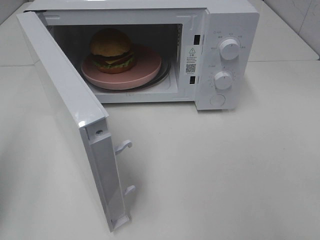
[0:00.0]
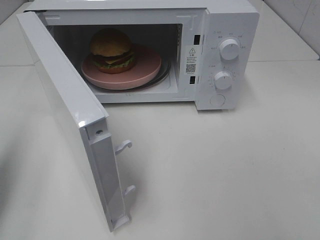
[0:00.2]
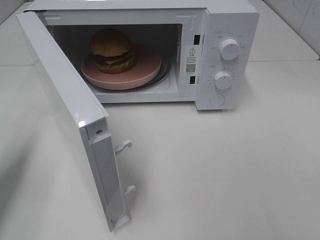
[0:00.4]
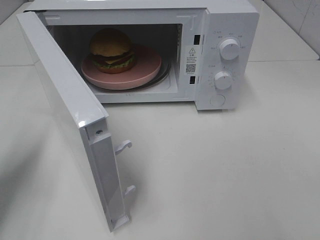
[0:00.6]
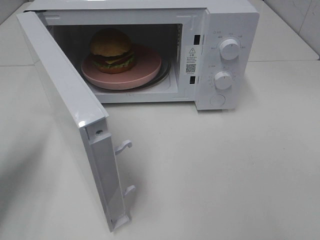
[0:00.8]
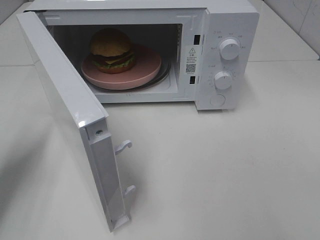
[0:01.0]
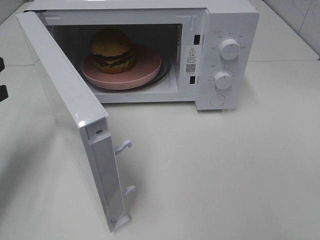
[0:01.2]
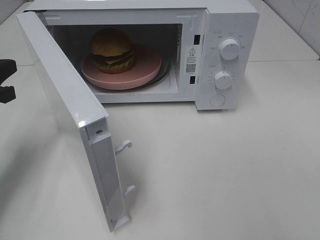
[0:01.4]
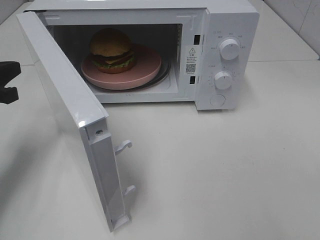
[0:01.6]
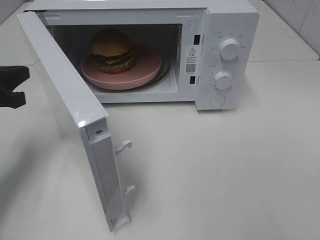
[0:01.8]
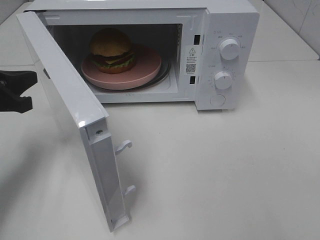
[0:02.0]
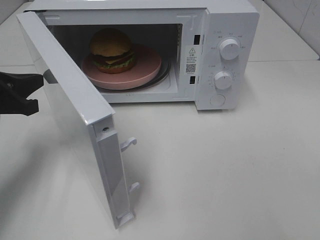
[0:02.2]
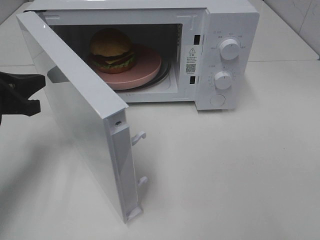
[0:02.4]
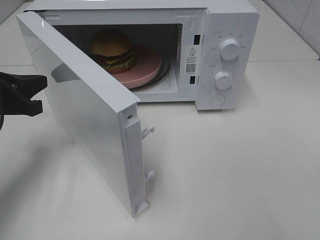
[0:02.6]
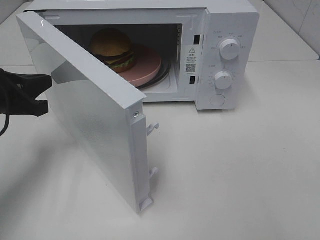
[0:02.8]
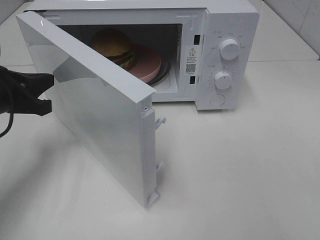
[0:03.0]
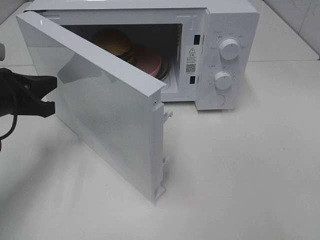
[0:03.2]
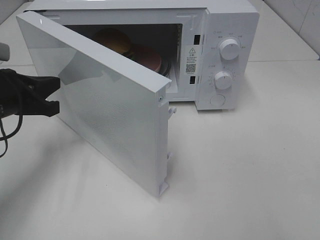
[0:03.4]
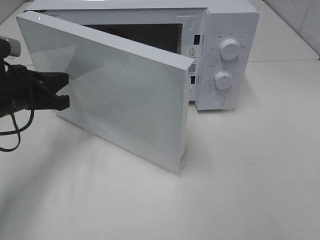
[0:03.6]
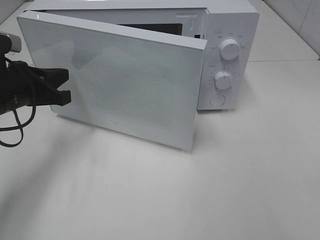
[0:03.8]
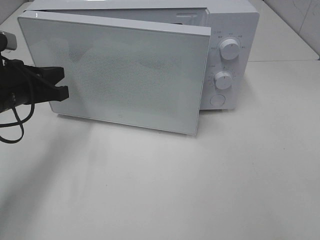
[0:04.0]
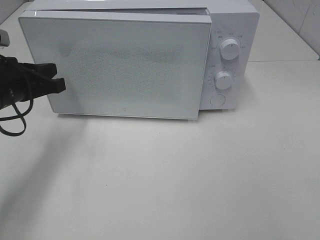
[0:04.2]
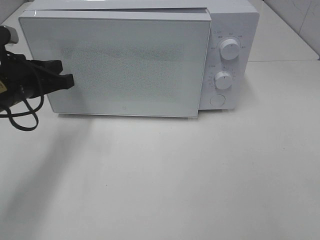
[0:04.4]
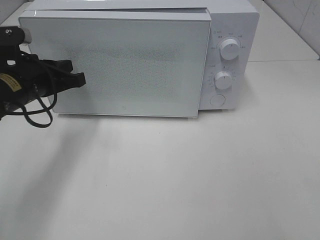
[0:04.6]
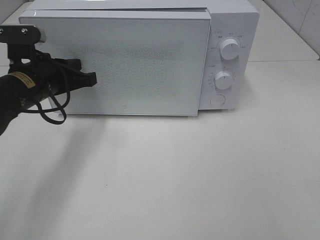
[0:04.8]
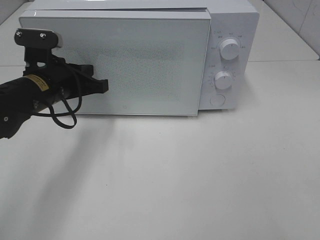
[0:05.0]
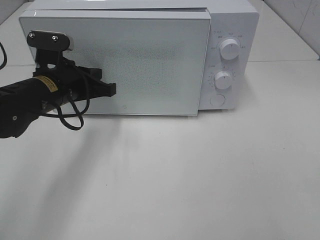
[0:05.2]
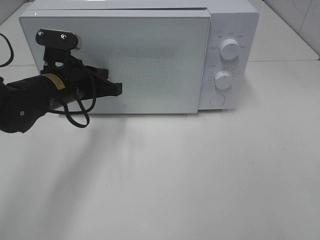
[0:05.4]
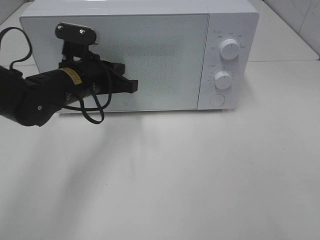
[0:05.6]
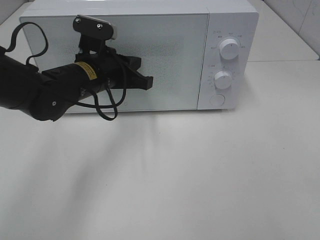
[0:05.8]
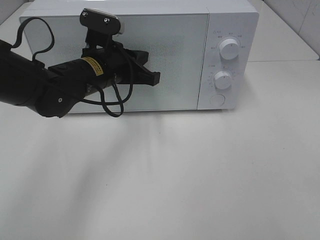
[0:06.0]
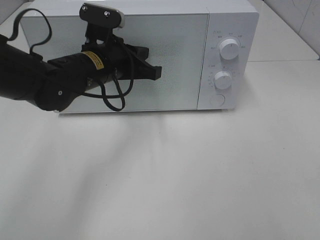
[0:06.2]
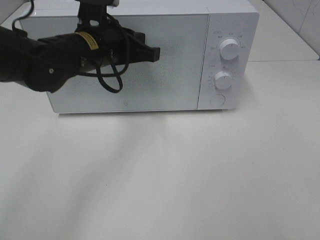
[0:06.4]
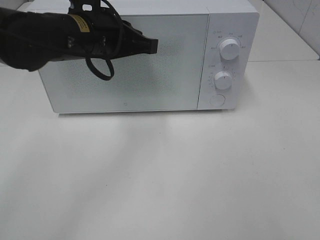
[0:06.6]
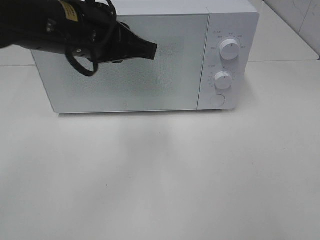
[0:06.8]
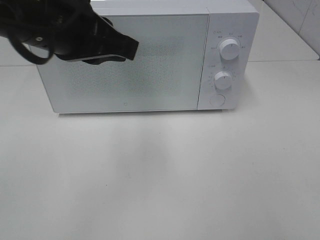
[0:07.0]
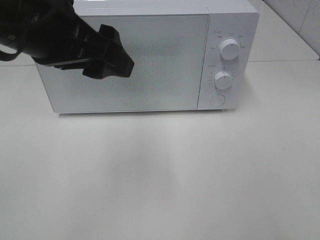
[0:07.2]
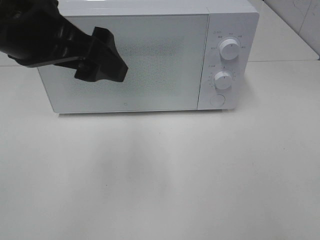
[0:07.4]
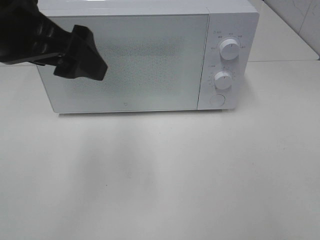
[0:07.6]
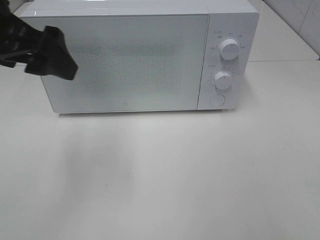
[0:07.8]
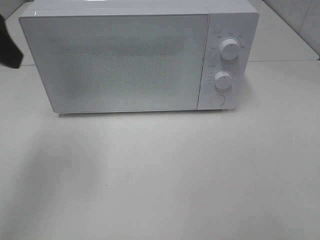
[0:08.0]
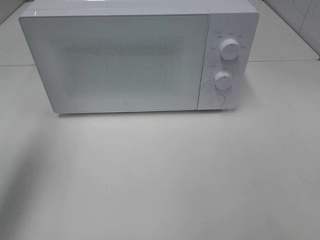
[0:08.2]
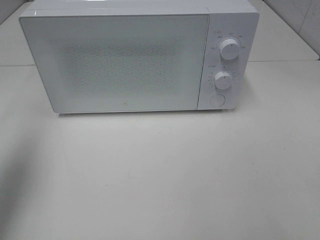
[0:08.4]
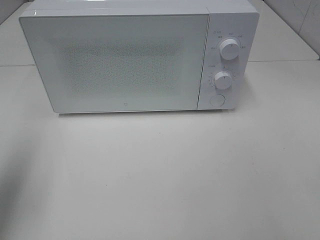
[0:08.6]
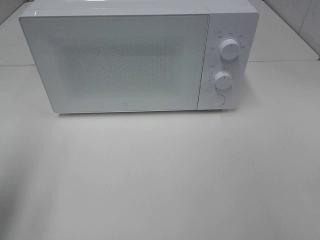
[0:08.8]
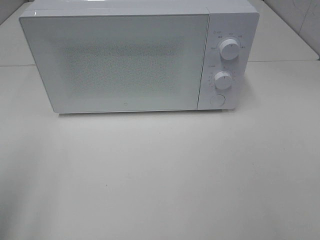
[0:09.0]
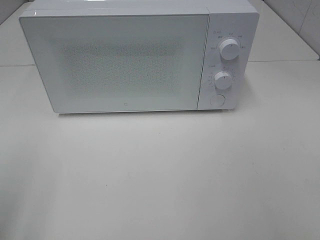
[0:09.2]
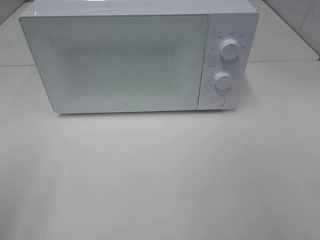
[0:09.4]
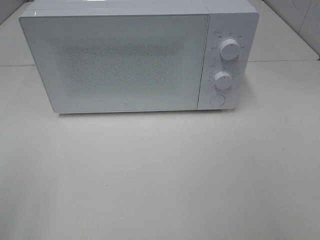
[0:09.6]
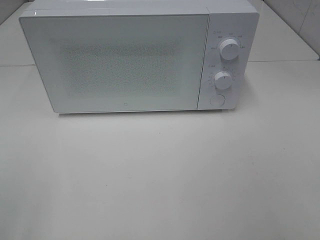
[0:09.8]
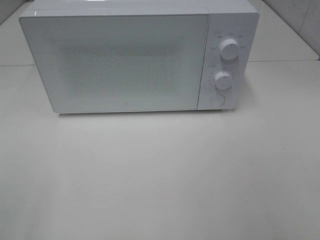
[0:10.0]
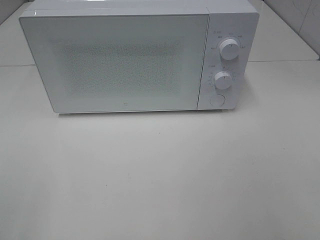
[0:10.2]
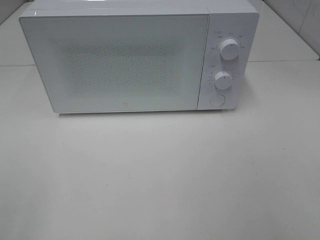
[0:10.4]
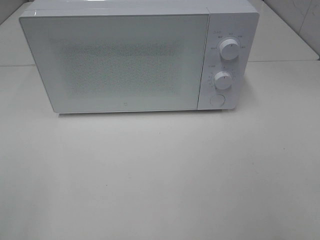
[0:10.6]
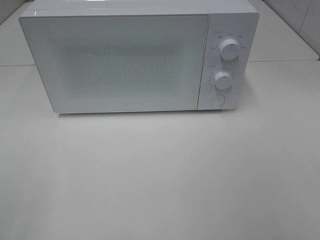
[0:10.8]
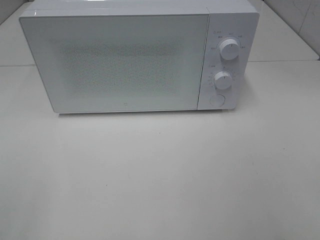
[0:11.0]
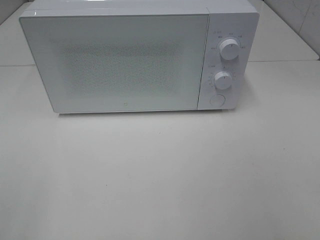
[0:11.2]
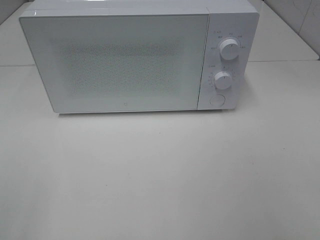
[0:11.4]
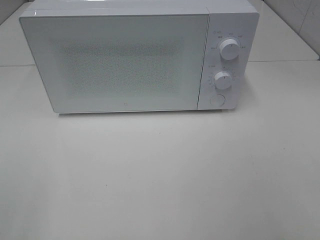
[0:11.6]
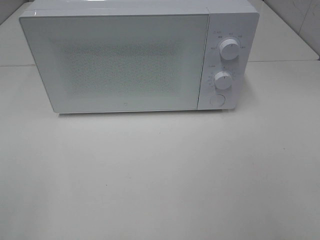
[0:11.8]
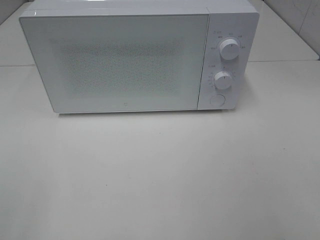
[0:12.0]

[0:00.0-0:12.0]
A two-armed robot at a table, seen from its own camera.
Task of the whole recording: Heat the burger.
Step, 0:00.0 to 0:07.2: Left hand: close the microwave door.
0:00.0 to 0:01.6: The left gripper shifts some 15 cm forward and downward.
0:04.4 to 0:06.0: The left gripper heads to the right, covering approximately 15 cm.
0:06.0 to 0:07.6: The left gripper heads upward, backward and to the left, covering about 20 cm, and opens up.
0:07.6 to 0:09.0: The left gripper moves to the left and backward, approximately 20 cm.
0:10.4 to 0:12.0: Neither gripper changes place.

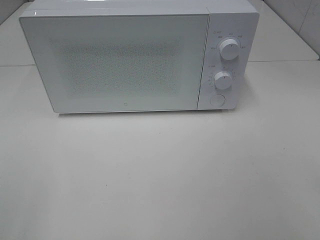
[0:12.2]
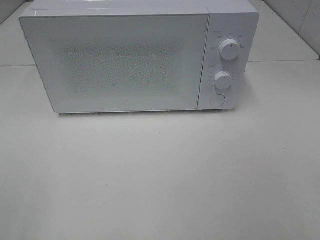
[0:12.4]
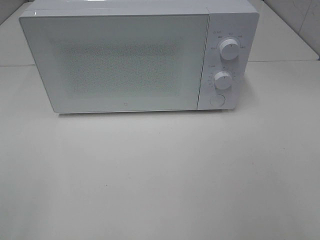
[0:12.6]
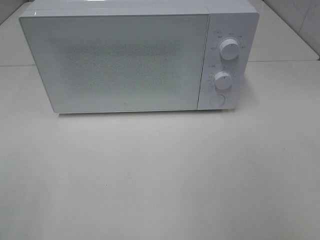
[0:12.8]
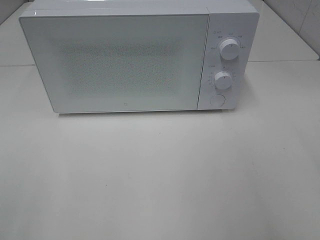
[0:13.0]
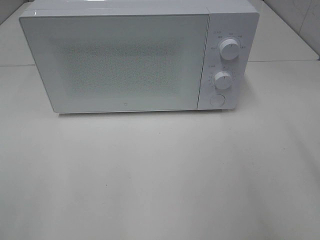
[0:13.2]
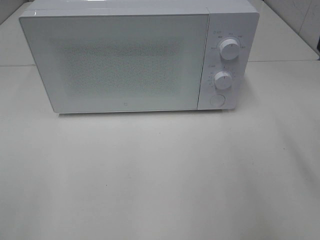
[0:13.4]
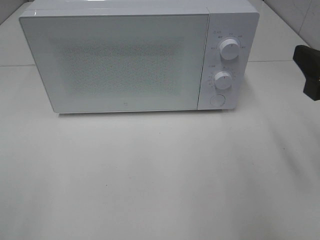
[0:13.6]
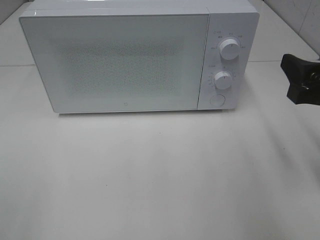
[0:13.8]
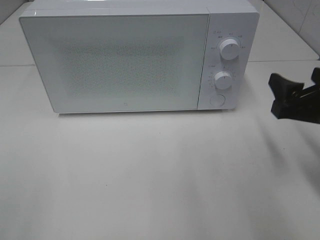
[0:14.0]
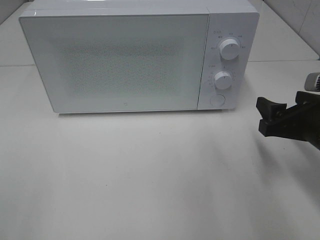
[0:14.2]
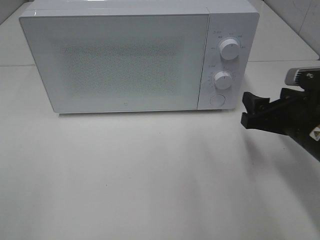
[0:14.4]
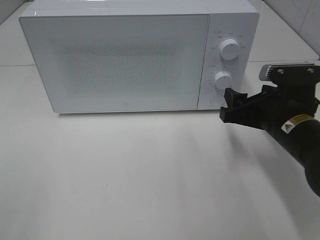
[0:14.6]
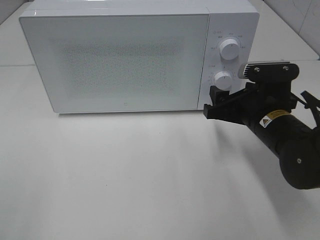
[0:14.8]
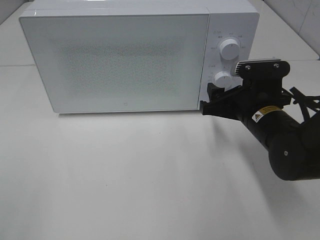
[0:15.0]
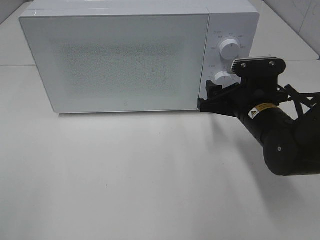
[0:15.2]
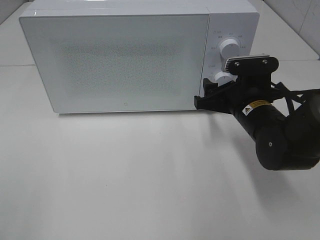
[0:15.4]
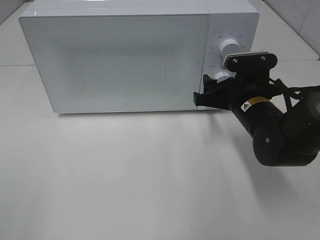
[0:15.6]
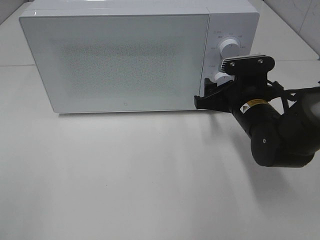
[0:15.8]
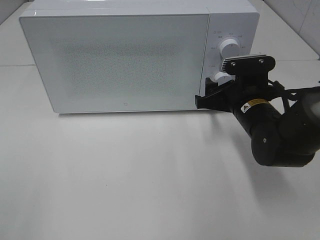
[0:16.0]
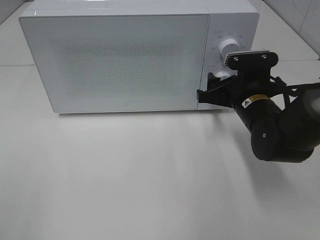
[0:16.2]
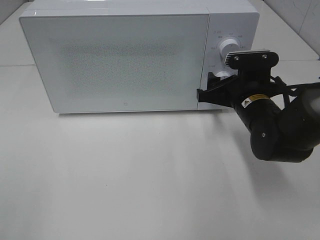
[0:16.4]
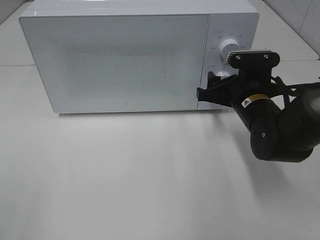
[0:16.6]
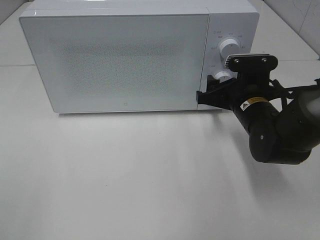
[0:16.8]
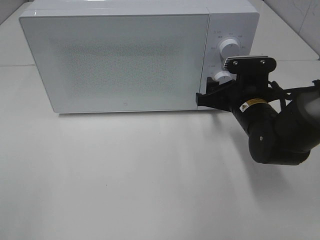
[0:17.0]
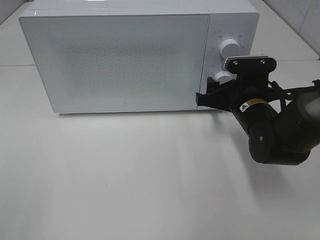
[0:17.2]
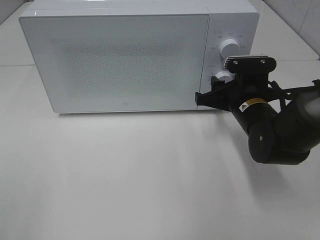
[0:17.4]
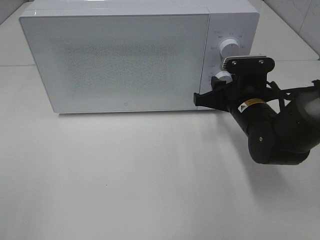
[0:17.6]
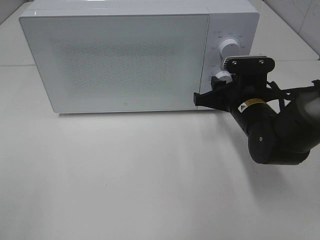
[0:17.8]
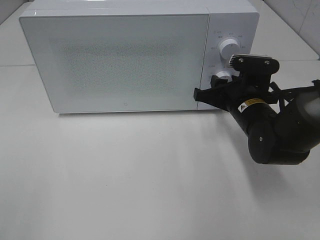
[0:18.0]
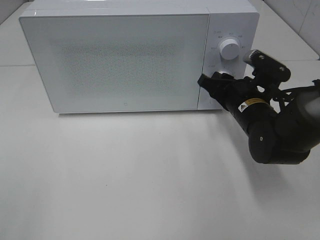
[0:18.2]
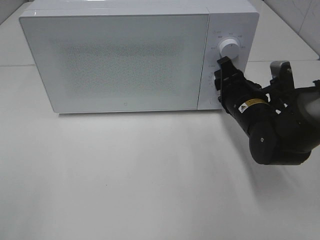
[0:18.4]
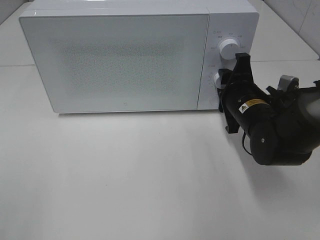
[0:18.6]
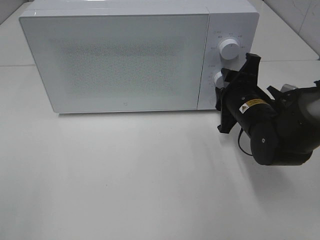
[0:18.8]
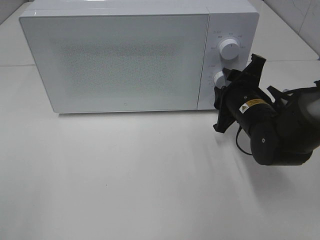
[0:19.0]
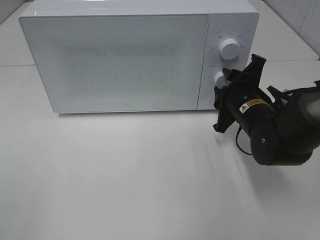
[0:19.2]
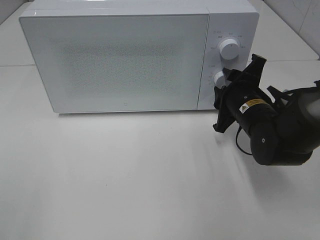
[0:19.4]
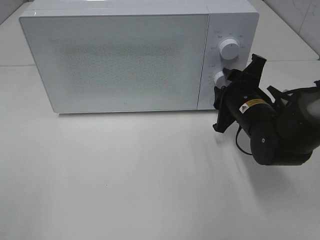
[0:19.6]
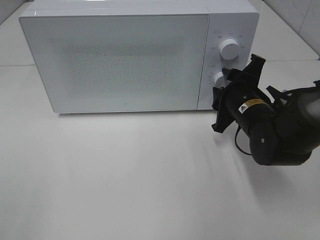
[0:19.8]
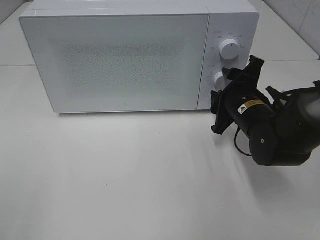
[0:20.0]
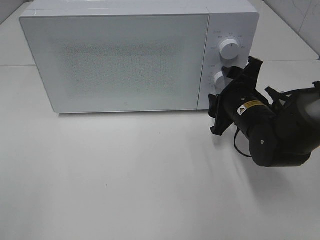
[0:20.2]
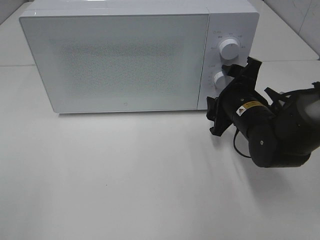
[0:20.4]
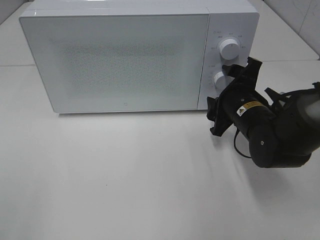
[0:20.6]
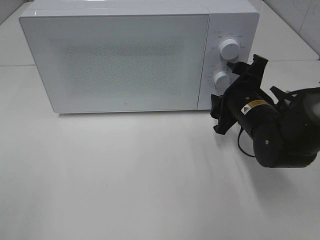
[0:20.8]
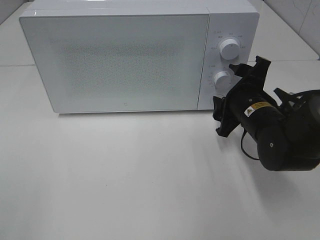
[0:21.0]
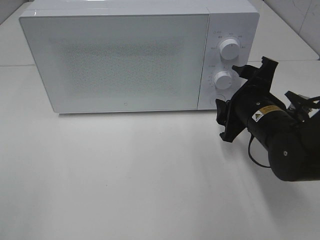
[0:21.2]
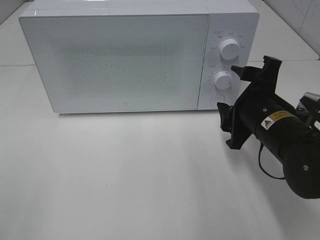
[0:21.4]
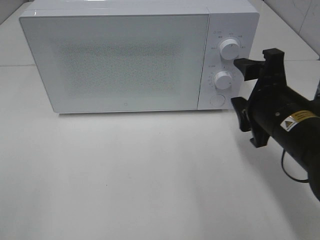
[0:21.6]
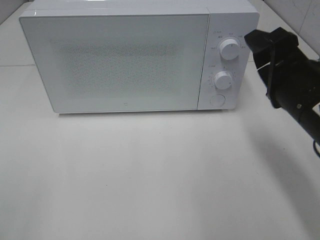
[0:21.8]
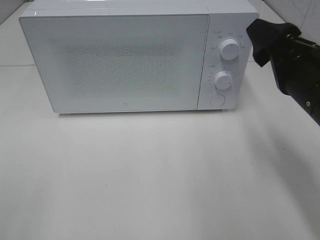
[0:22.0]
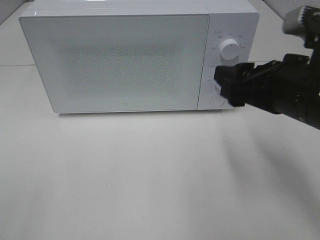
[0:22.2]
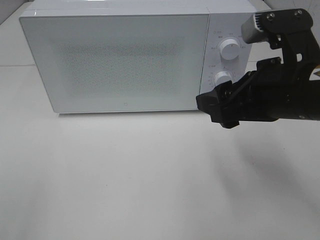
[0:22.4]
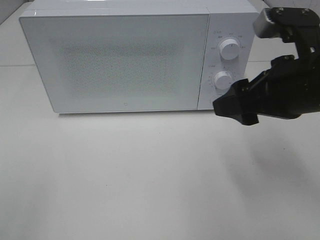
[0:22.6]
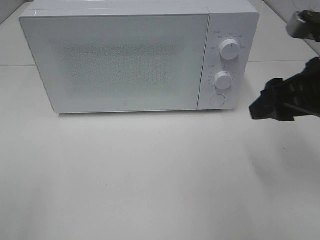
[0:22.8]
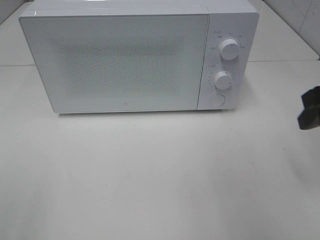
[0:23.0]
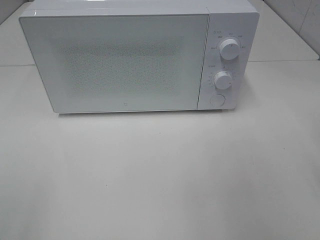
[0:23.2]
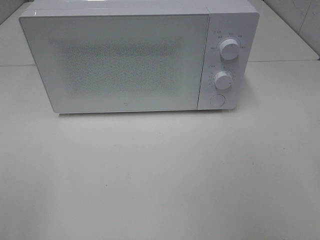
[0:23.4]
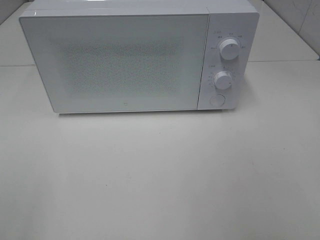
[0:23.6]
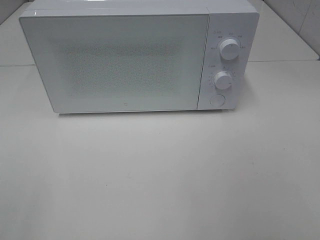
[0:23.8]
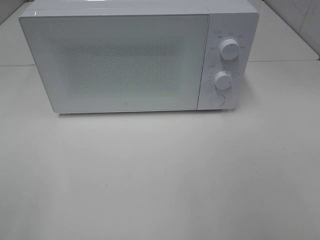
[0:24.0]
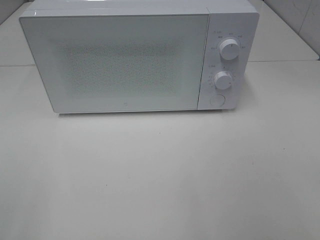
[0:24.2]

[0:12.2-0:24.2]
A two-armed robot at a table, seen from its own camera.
Task of the whole recording: Heat the burger.
Step, 0:12.2 to 0:20.4: Right hand: twist timer button.
0:12.2 to 0:13.8: The right gripper is displaced forward by roughly 20 cm.
0:13.8 to 0:15.2: The right gripper heads forward, to the left and downward, covering some 15 cm.
0:15.2 to 0:16.6: The grippers stay close to where they were, moving slightly.
0:19.8 to 0:21.2: There are only small adjustments of the grippers.
0:21.2 to 0:22.6: The right gripper is displaced upward and backward by some 15 cm.
0:22.6 to 0:24.2: The right gripper heads backward and to the right, covering some 20 cm.
